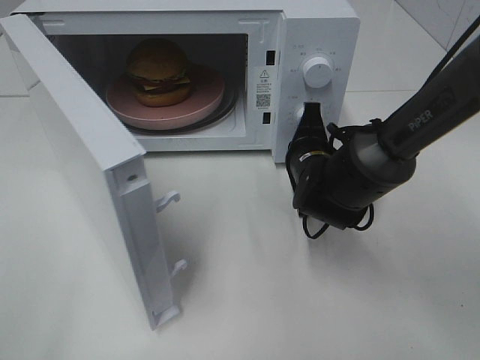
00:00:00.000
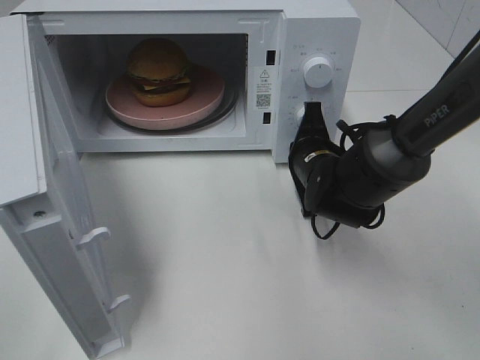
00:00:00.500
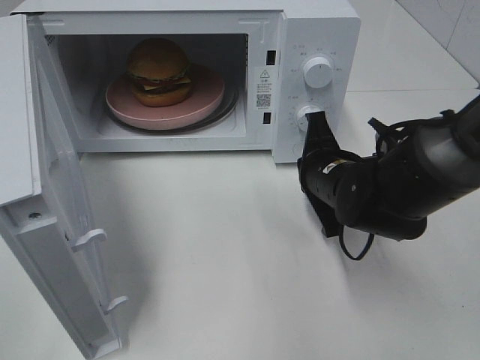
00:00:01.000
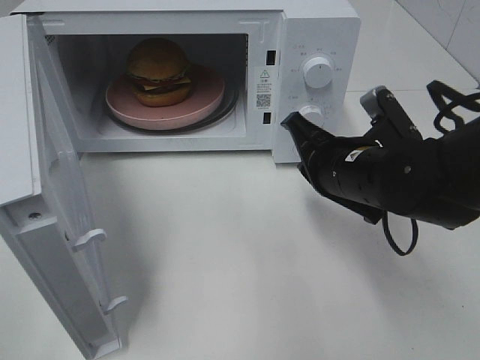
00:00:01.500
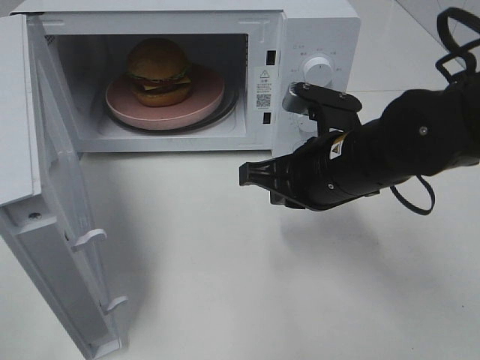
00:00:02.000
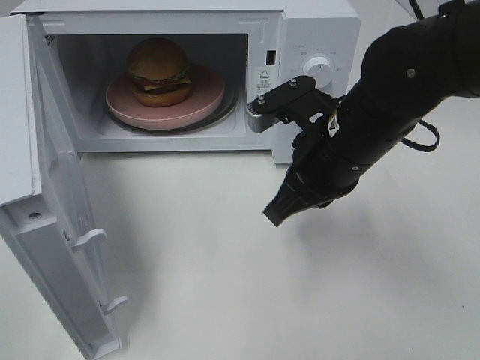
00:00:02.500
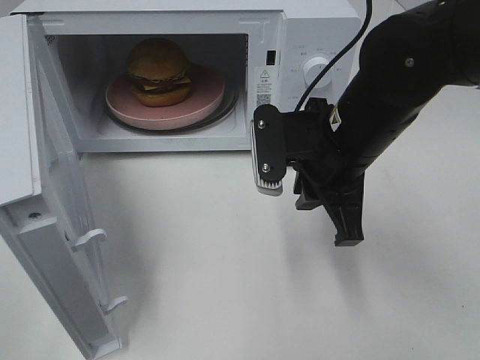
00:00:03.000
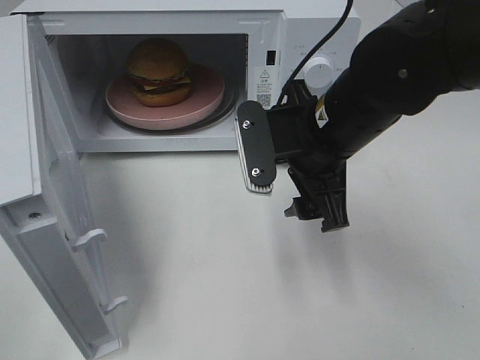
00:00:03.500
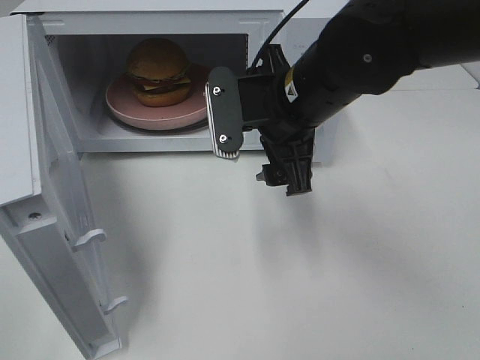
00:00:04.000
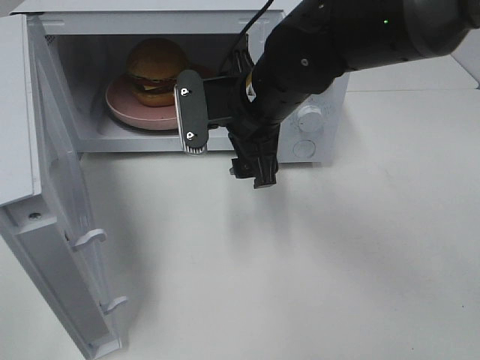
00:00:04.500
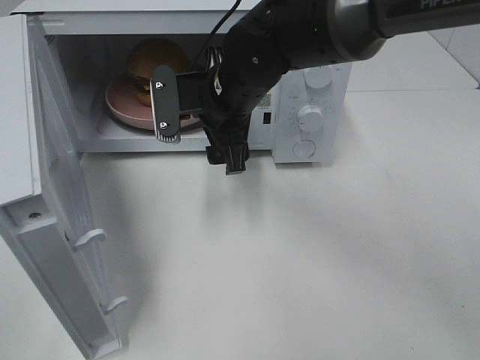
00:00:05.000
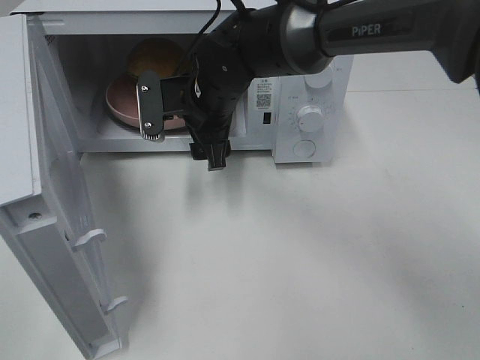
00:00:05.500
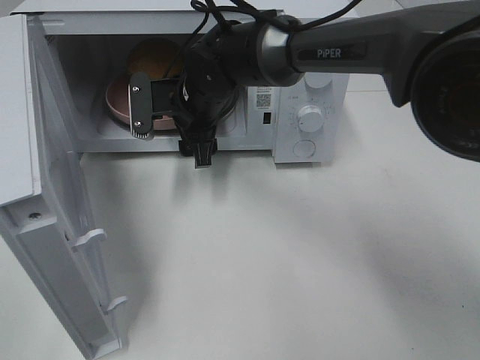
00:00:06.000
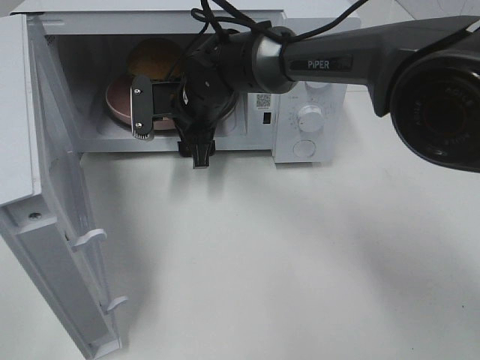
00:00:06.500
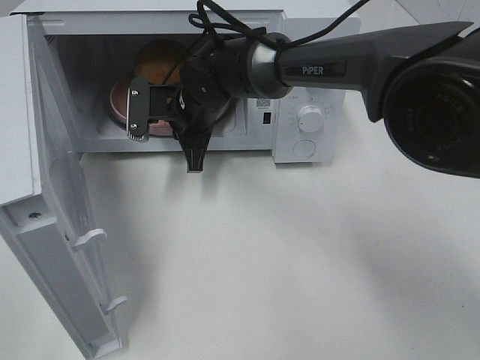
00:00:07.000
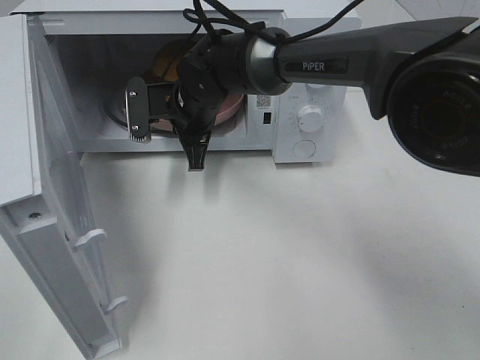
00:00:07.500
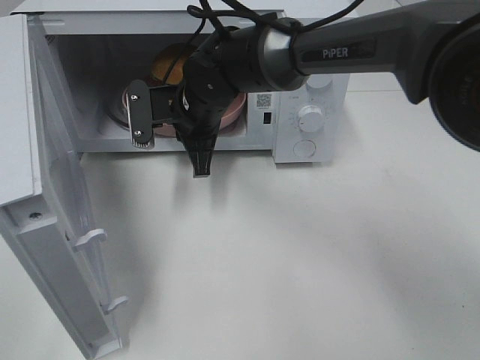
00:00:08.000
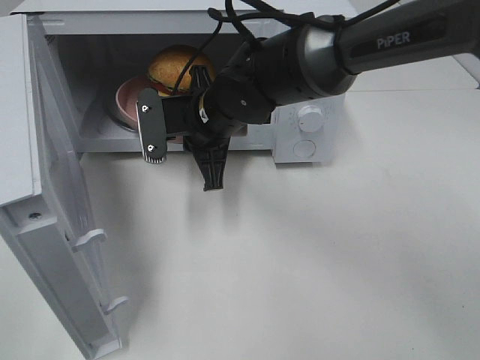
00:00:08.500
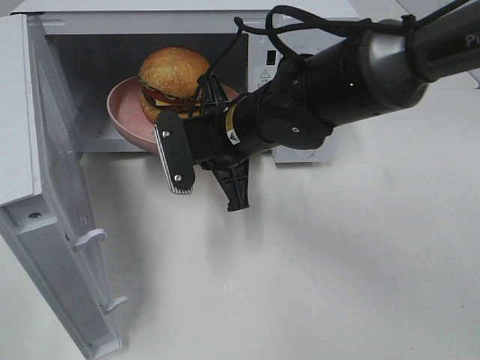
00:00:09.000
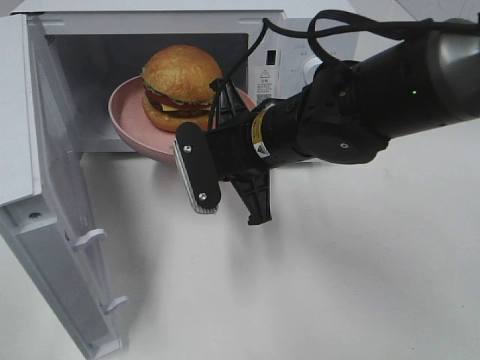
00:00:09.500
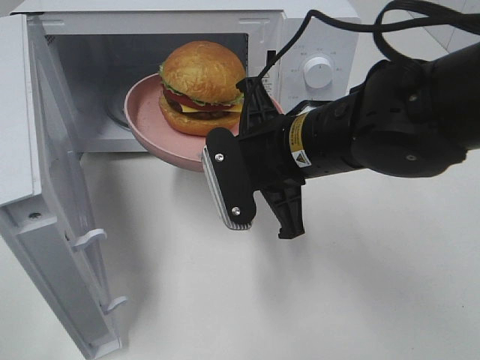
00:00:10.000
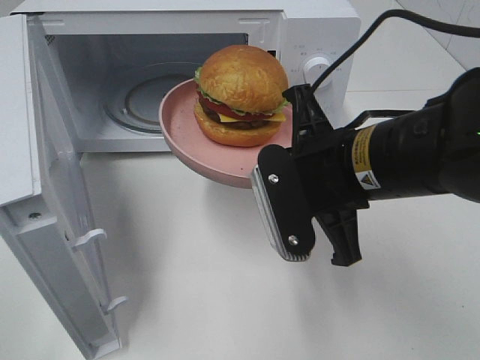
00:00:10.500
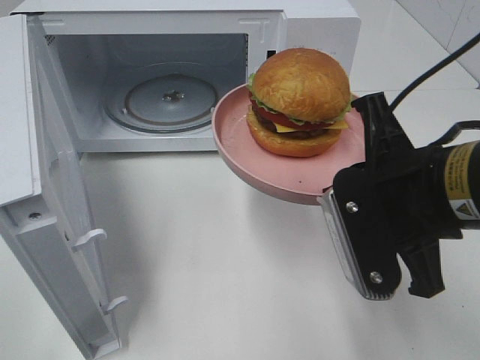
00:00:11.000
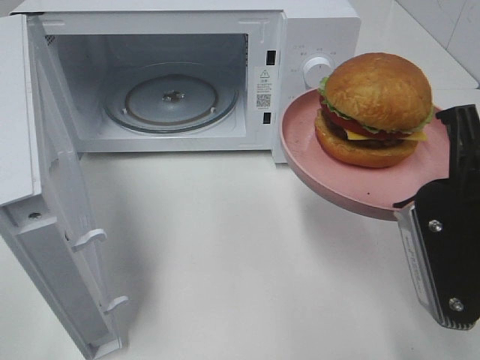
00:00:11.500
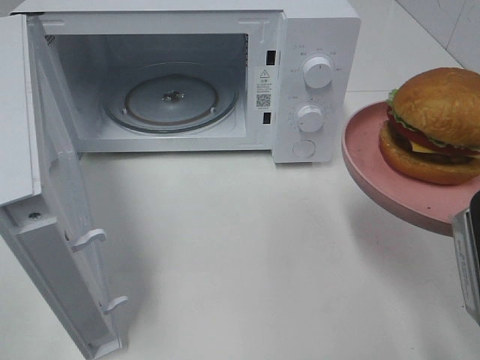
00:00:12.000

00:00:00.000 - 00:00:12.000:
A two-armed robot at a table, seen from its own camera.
Task of the whole recording: Heat the burger.
Step, 00:00:01.000 - 00:00:07.000: Right hand: grab the plate with the hamburger.
00:00:00.000 - 00:00:02.000: The right gripper goes roughly 15 cm backward and upward.
00:00:02.000 - 00:00:04.000: The right gripper travels upward by some 5 cm, and opens its fingers.
00:00:04.000 - 00:00:06.000: The right gripper shifts roughly 15 cm forward, to the left and downward.
00:00:06.000 - 00:00:08.000: The right gripper closes up.
00:00:08.000 - 00:00:10.000: The right gripper shifts some 20 cm backward and to the right.
00:00:10.000 - 00:00:12.000: The right gripper moves to the right and backward, some 20 cm.

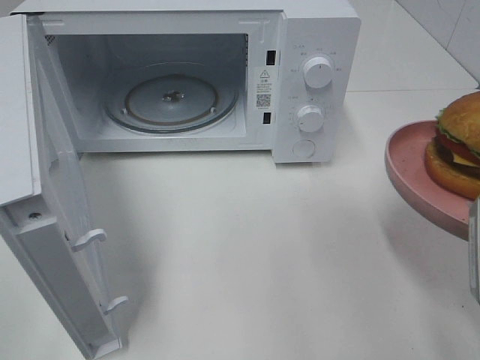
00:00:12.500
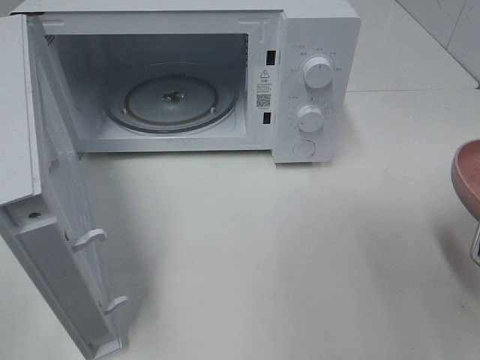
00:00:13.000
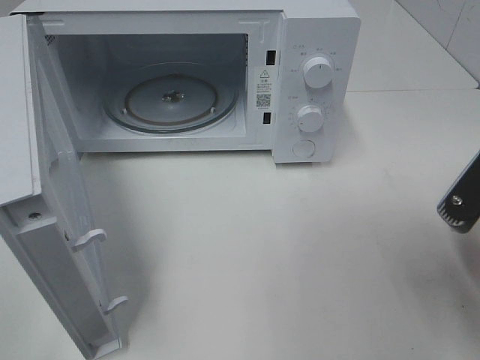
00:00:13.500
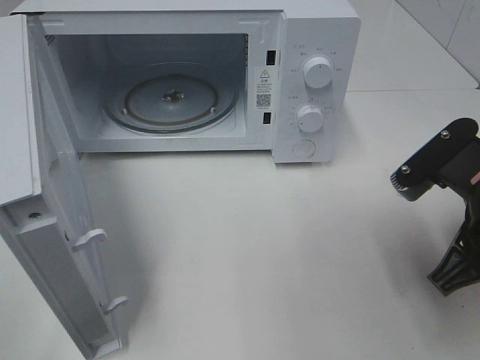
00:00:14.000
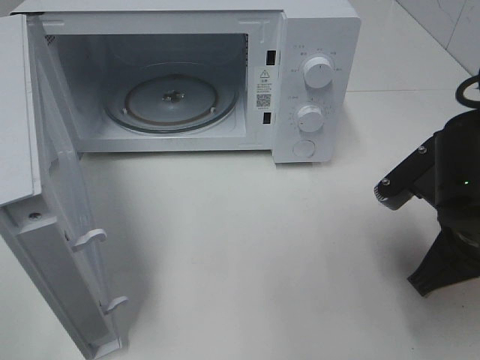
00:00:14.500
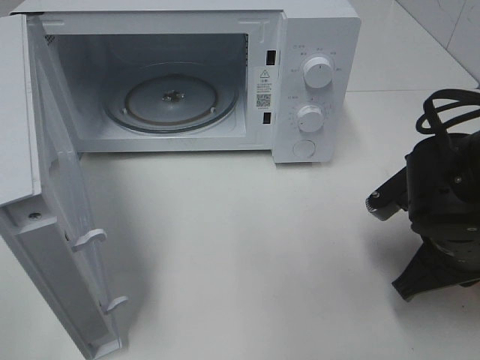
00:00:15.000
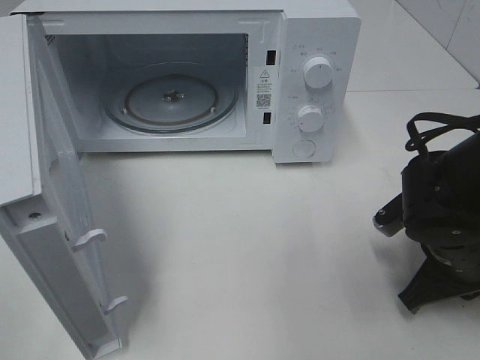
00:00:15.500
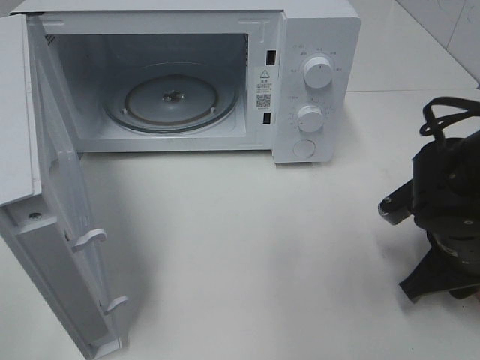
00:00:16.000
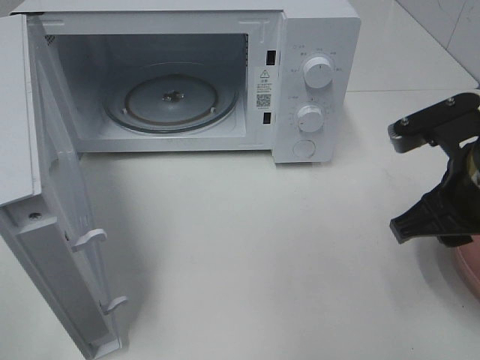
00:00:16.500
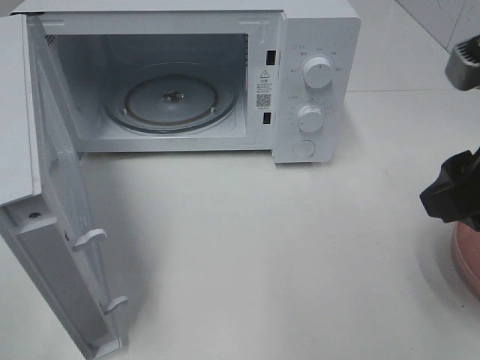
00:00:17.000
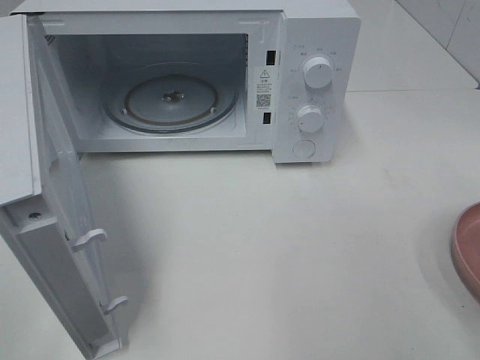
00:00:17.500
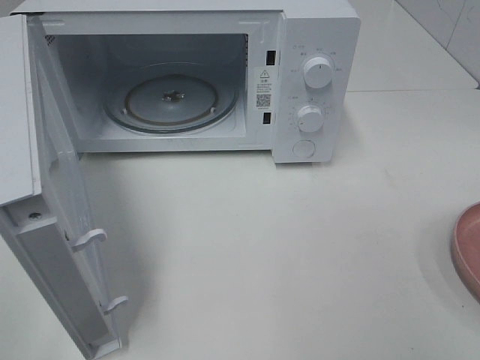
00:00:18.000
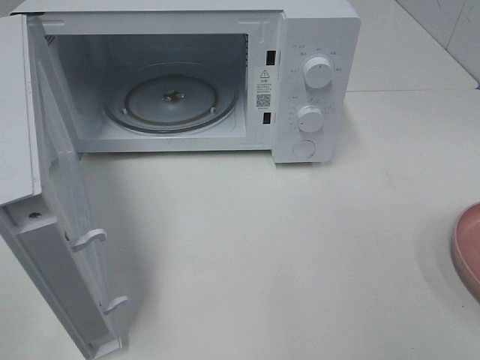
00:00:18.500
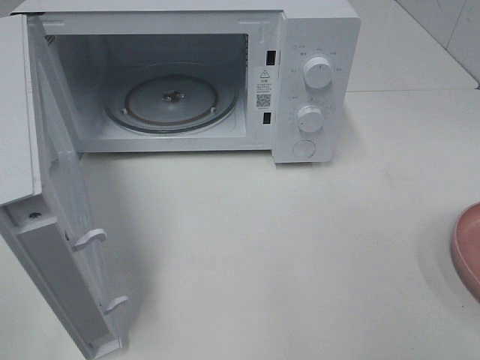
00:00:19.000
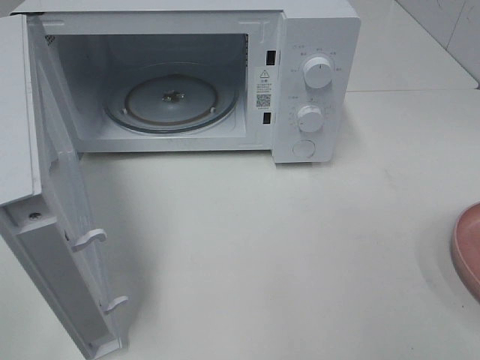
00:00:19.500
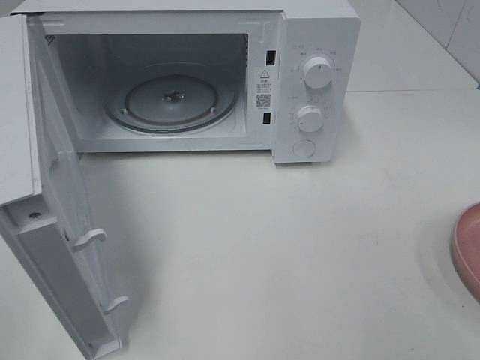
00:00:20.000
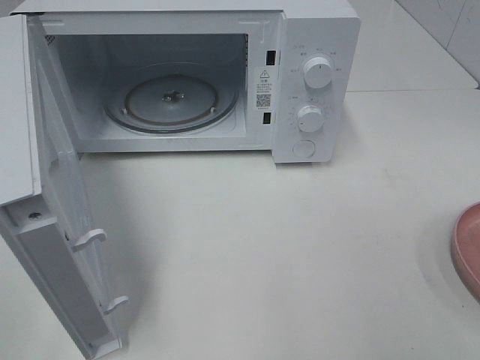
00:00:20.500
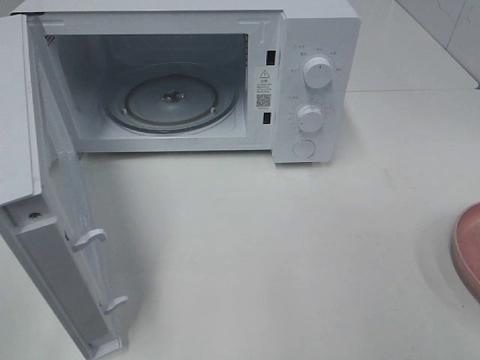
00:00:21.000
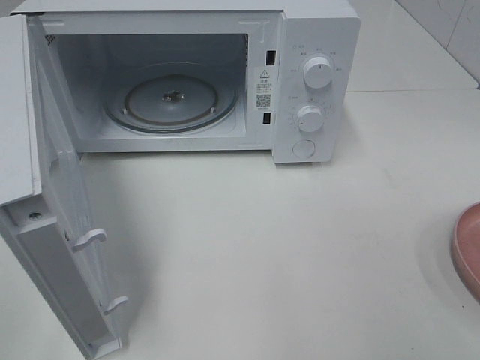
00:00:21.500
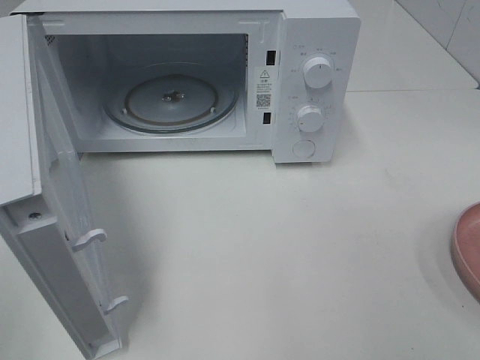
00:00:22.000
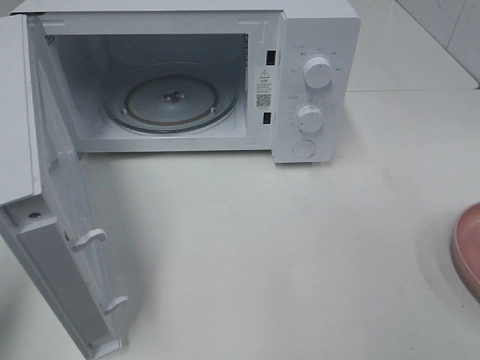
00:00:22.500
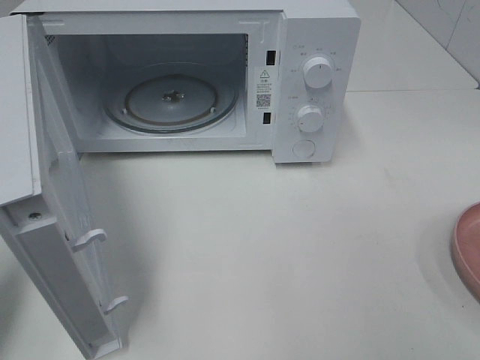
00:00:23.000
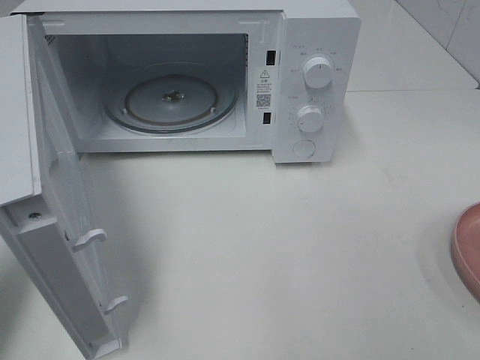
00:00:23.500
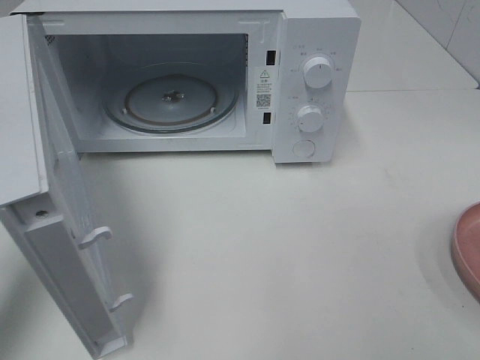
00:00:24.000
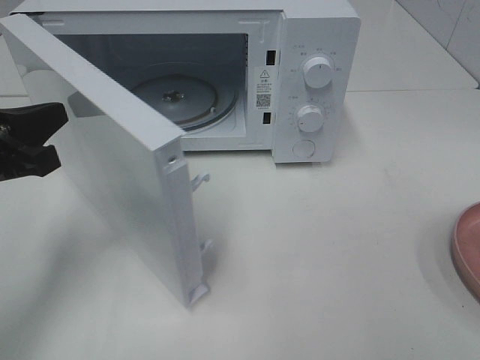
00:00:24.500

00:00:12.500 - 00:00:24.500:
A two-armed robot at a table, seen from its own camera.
Task of the whole recording: Heat the burger.
Step, 00:00:12.500 - 00:00:16.000: Right hand: place the plate on the table.
00:00:12.500 - 00:00:14.500: The right gripper is displaced forward and downward by about 10 cm.
00:00:14.500 - 00:00:16.500: The right gripper opens.
00:00:16.500 - 00:00:18.500: The right gripper goes approximately 25 cm backward, to the right and upward, and opens its fingers.
00:00:20.500 - 00:00:22.500: The left gripper is displaced forward by roughly 10 cm, and closes.
00:00:22.500 - 00:00:24.500: The left gripper travels forward, downward and to the right by about 20 cm.

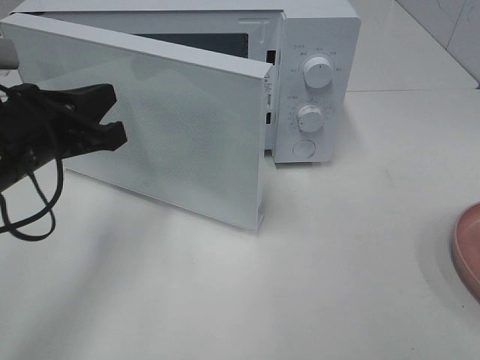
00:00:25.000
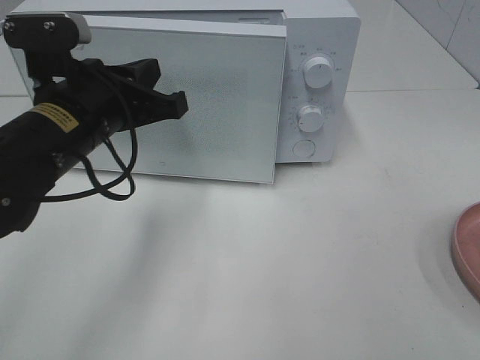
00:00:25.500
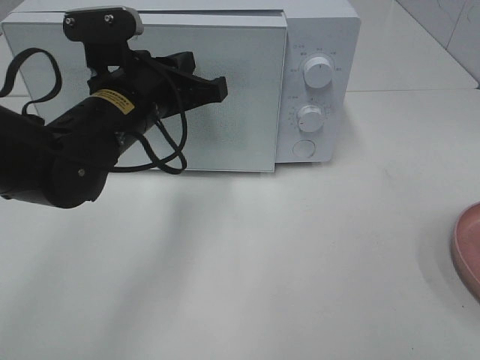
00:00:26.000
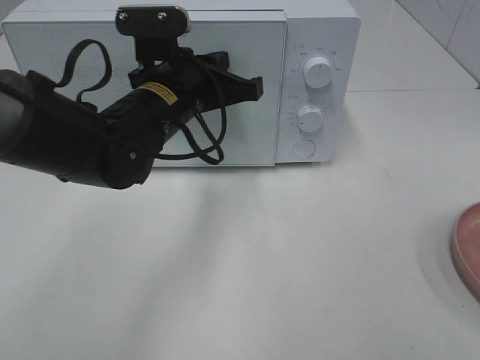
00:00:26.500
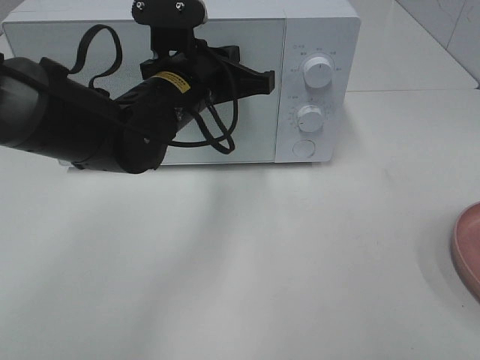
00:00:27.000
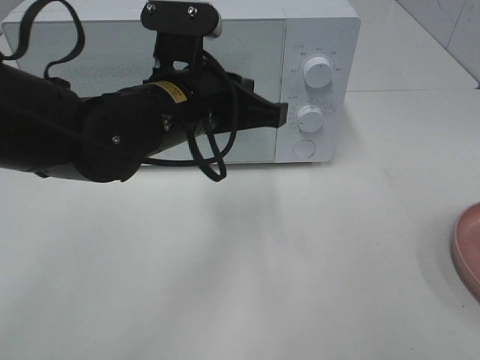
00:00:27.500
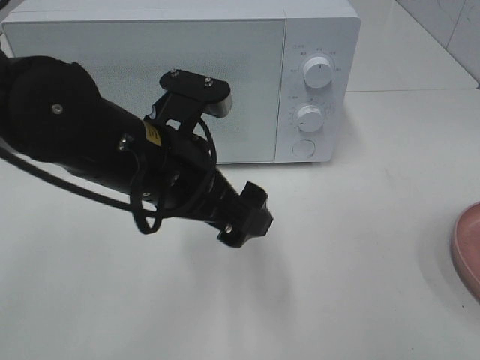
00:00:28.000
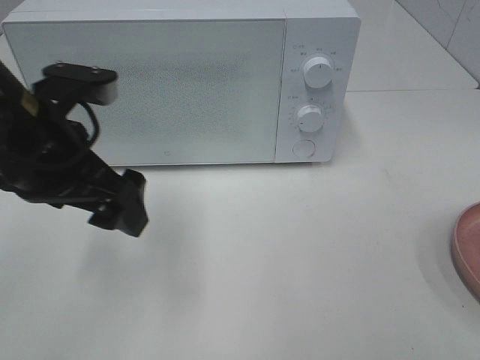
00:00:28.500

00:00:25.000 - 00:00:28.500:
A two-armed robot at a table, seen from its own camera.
Task of the whole recording: Heat the burger.
Step, 00:00:25.000 - 00:00:27.000: Left hand: close the microwave door.
00:00:25.000 - 00:00:27.000: The left gripper heads to the right and forward, covering approximately 15 cm.
00:00:27.000 - 00:00:28.500: The left gripper shifts some 15 cm to the left and backward, and opens.
